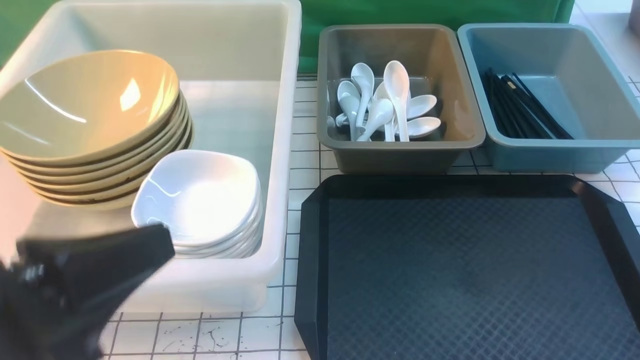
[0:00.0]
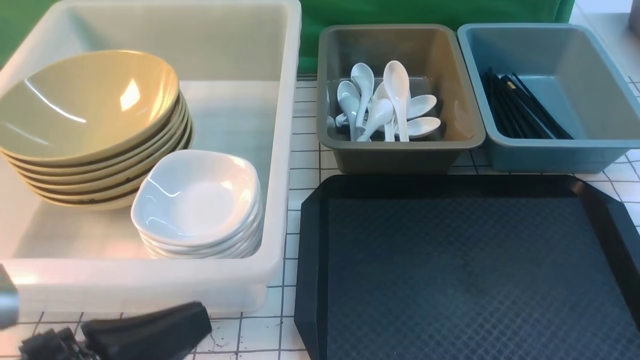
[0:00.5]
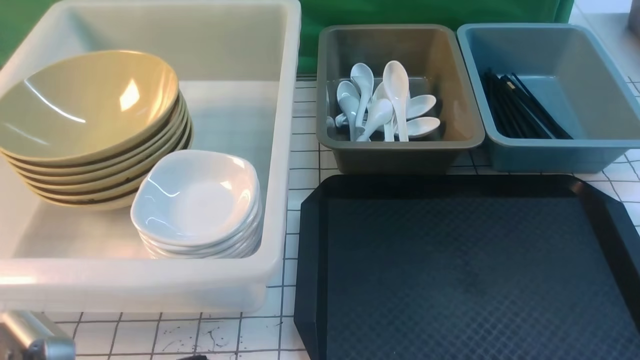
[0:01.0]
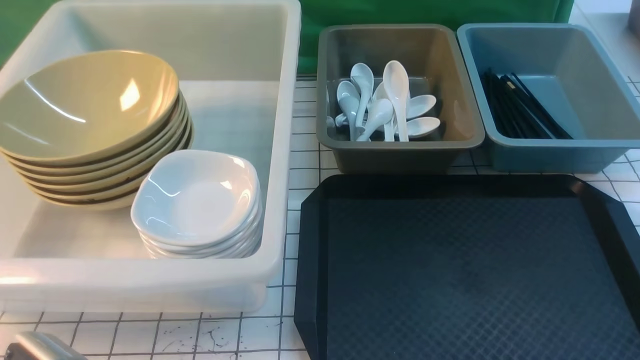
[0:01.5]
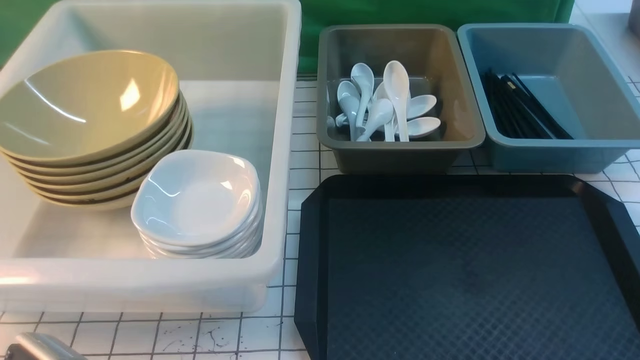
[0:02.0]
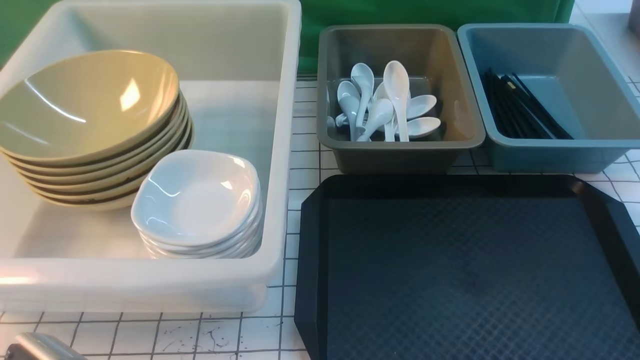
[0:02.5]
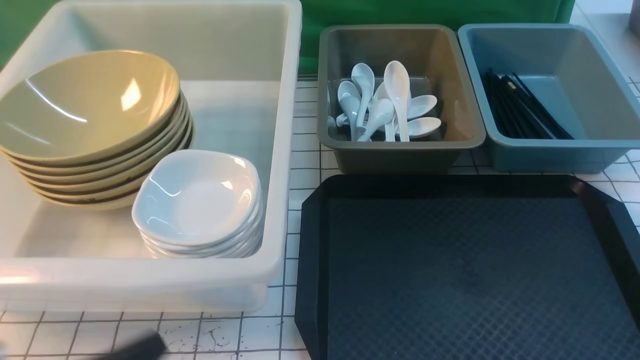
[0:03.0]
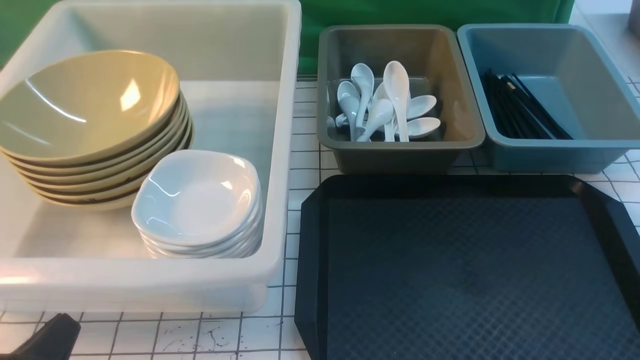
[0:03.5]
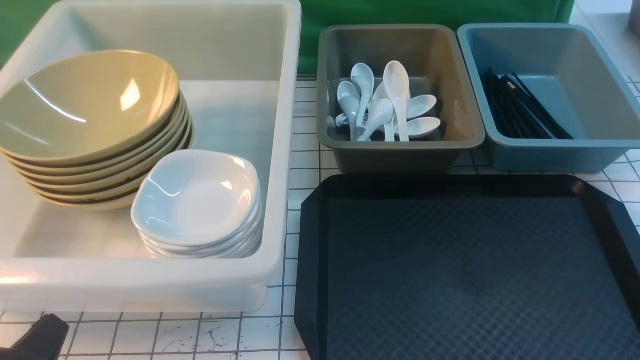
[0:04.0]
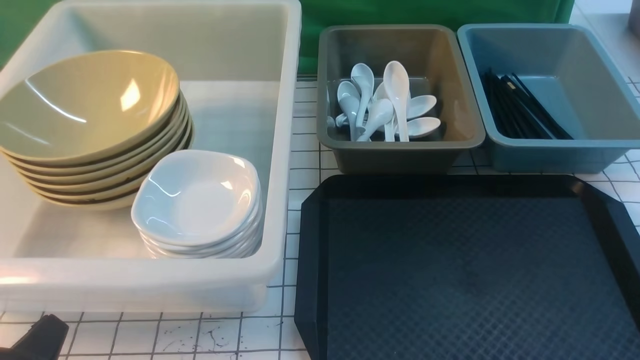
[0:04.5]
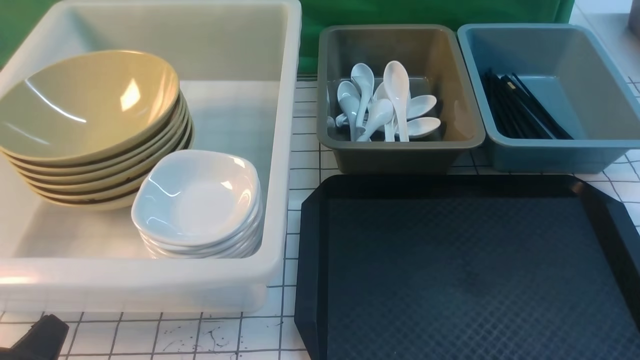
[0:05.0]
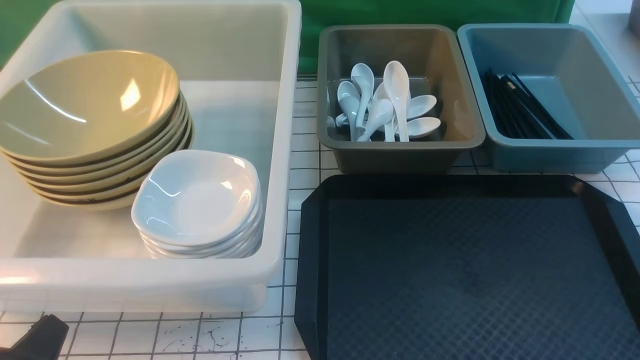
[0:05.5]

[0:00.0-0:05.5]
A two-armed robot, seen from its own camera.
Task of the whole recording: on white black table put chopsticks spoon bowls plates into blue grey white boxes.
0:00.0 to 0:02.0: Both grippers travel together downward, approximately 15 cm.
0:02.0 to 0:03.5: The left gripper is displaced to the left by about 5 cm.
